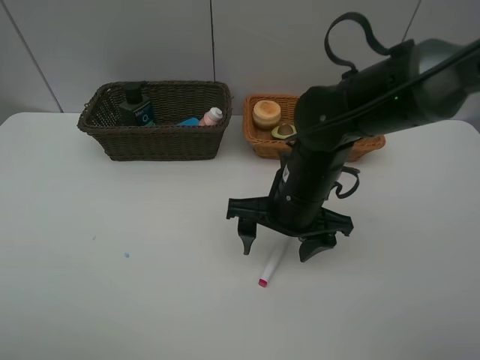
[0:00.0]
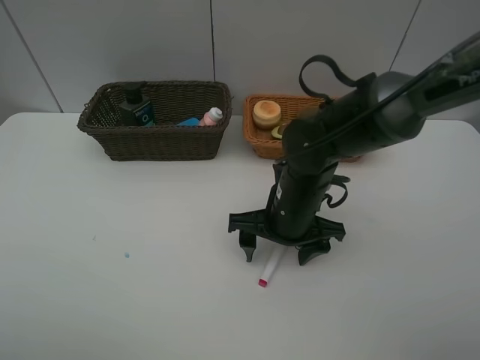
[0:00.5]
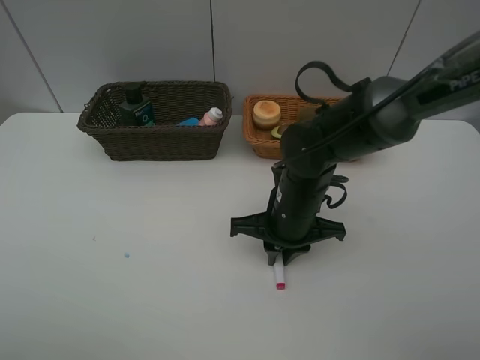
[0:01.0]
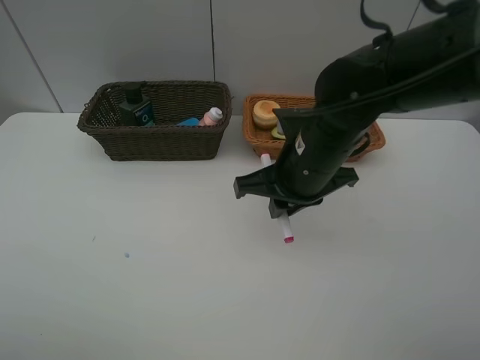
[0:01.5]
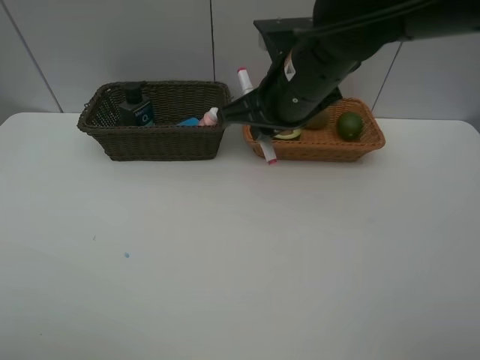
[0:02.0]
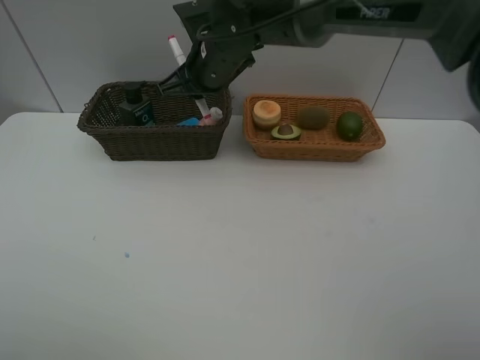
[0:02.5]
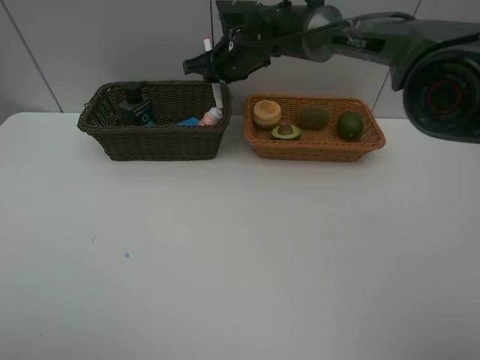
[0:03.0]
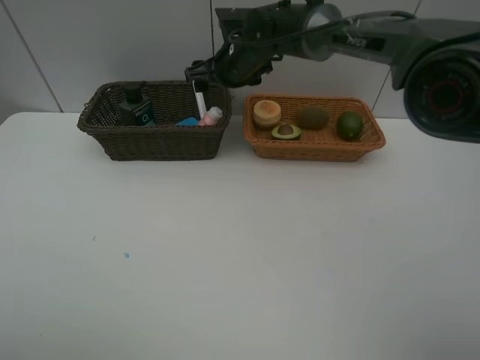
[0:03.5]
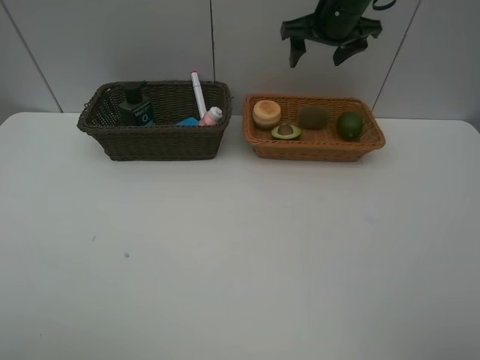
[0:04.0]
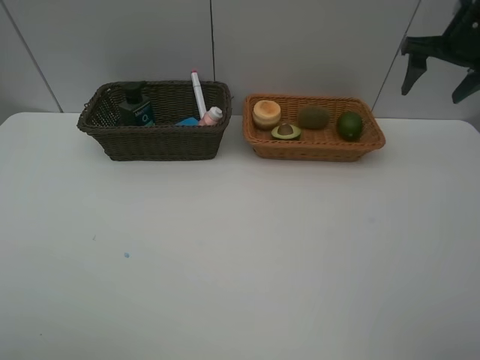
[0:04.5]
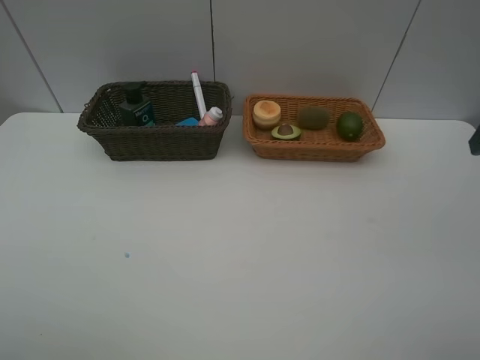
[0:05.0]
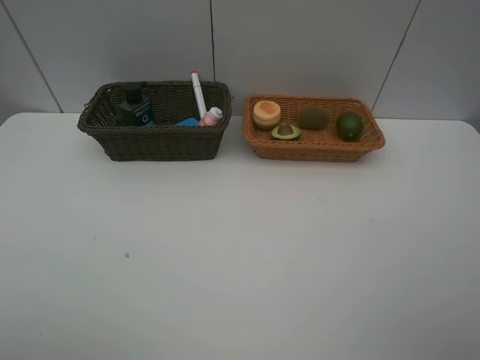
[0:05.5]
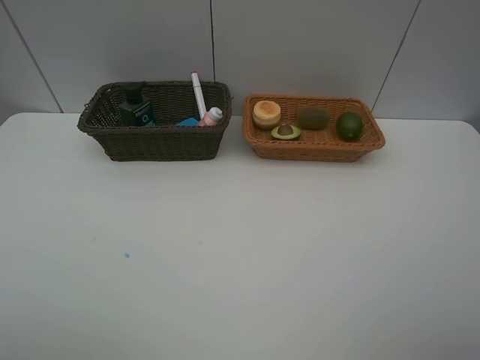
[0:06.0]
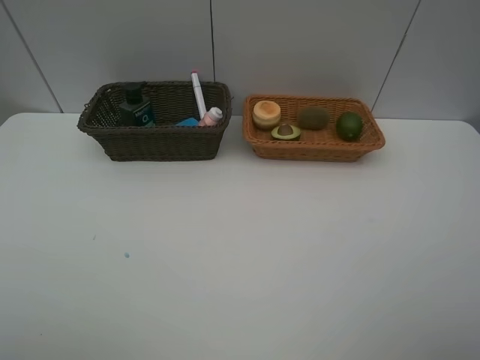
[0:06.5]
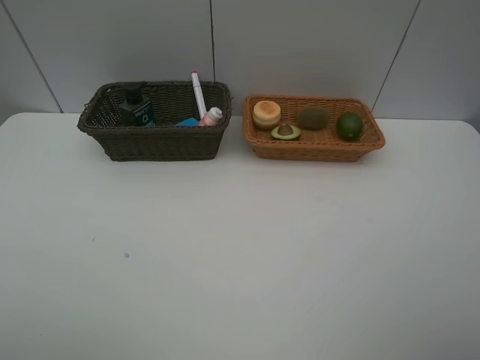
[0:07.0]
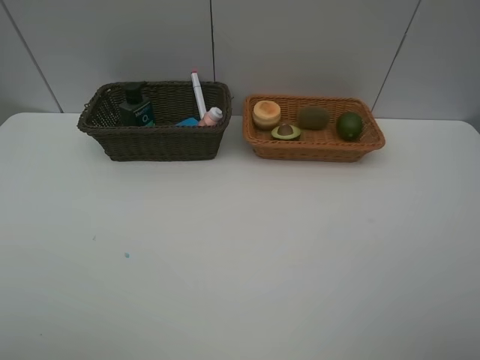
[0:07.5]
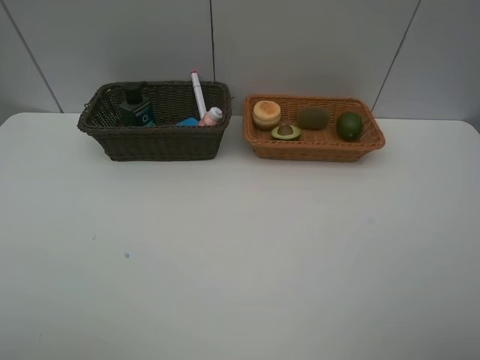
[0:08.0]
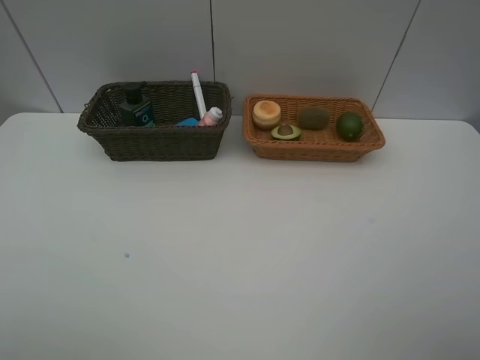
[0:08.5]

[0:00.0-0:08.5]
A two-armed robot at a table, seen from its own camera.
Task of the whole recording: Place multiple objects separately in different baskets.
Step, 0:01.5 to 0:03.5: Place the red marker in the dark basket with right gripper.
0:00.0 to 0:02.0: The right gripper is displaced upward by roughly 10 cm, and closes up.
0:02.0 to 0:04.0: The right gripper travels forward and to the right by approximately 20 cm, and opens.
0:04.0 to 0:06.5: The right gripper is displaced backward by roughly 50 cm.
0:06.5 to 0:08.5: The two grippers keep their place.

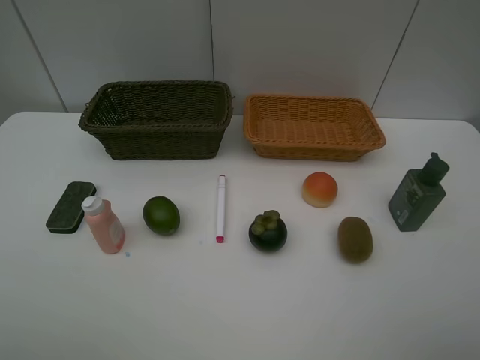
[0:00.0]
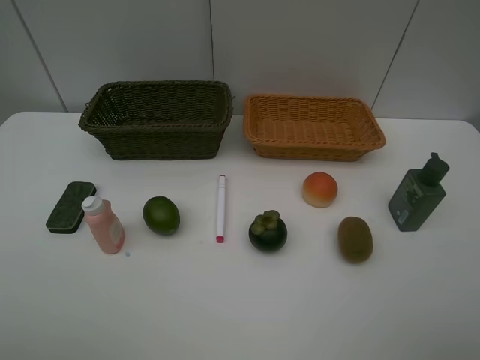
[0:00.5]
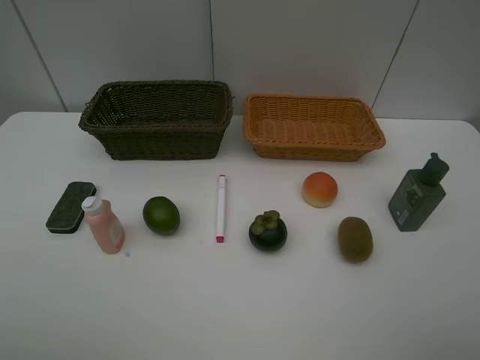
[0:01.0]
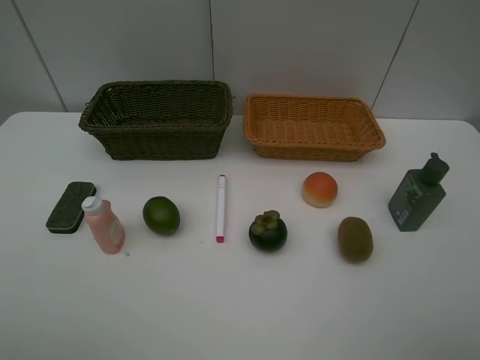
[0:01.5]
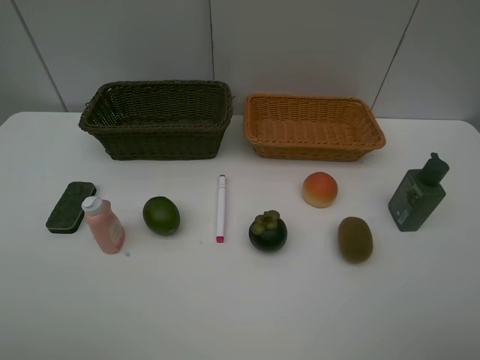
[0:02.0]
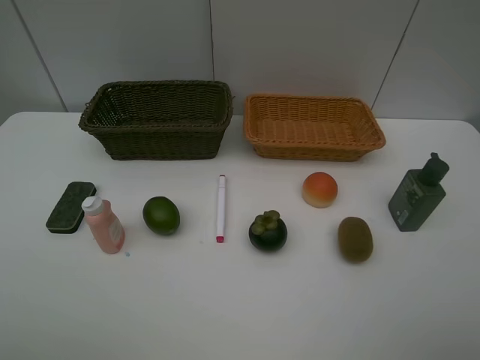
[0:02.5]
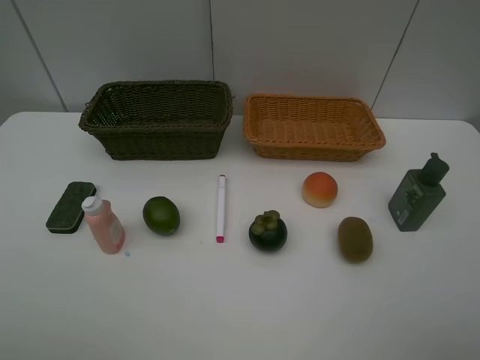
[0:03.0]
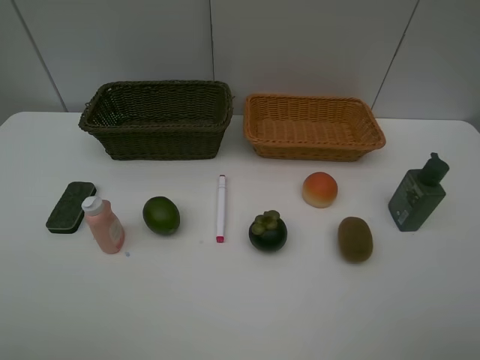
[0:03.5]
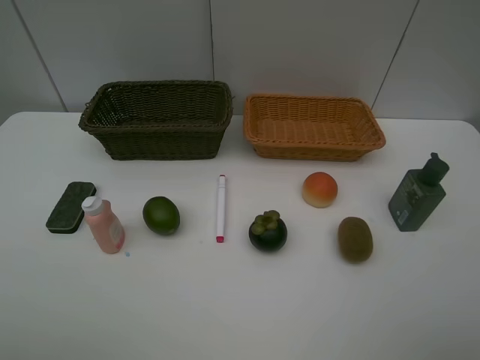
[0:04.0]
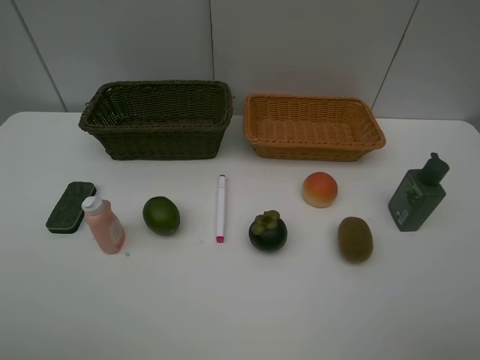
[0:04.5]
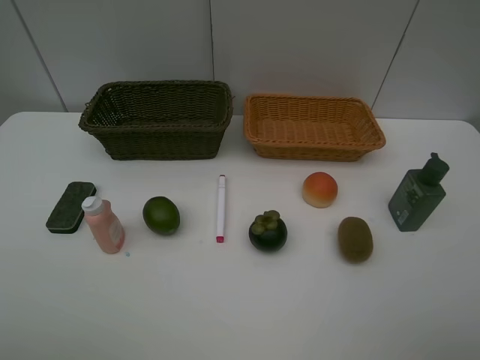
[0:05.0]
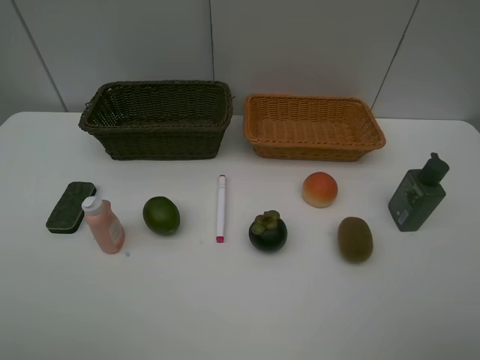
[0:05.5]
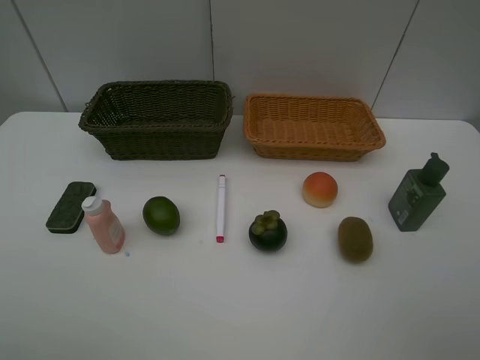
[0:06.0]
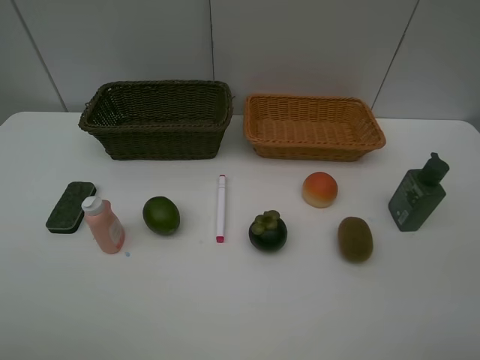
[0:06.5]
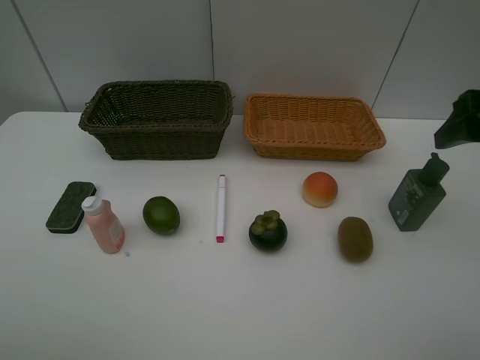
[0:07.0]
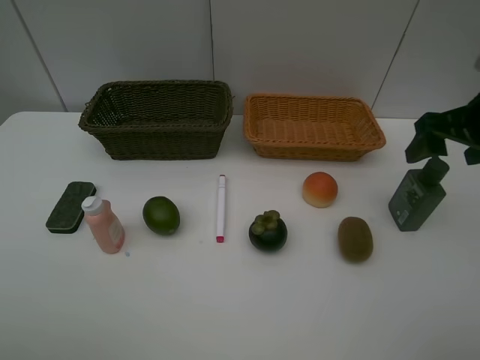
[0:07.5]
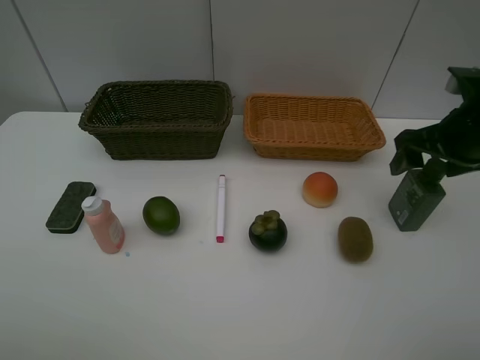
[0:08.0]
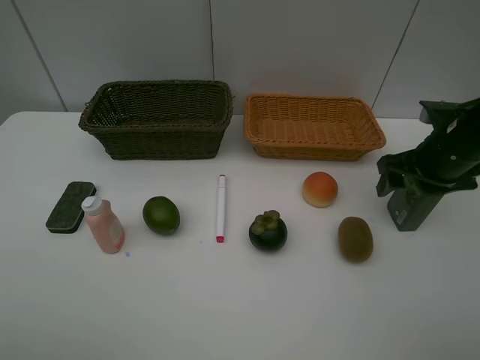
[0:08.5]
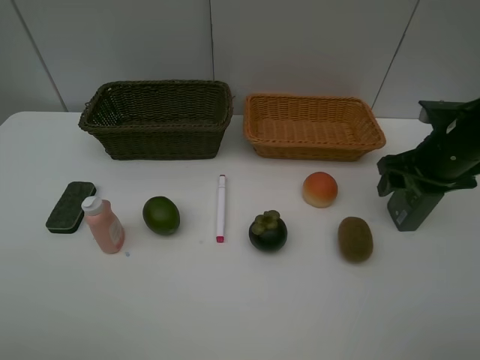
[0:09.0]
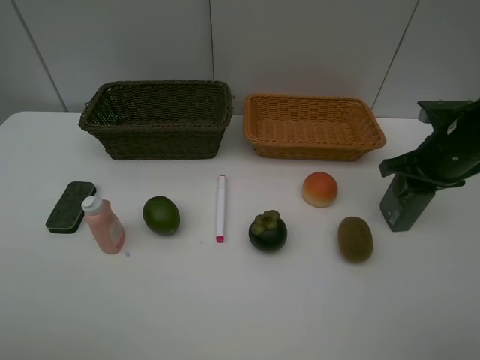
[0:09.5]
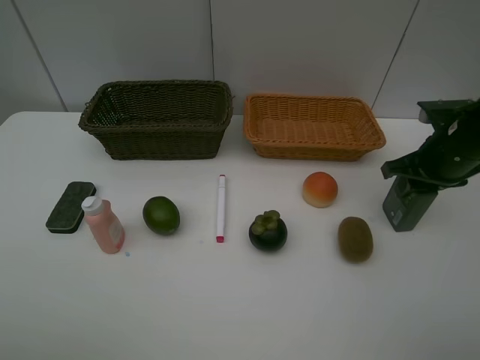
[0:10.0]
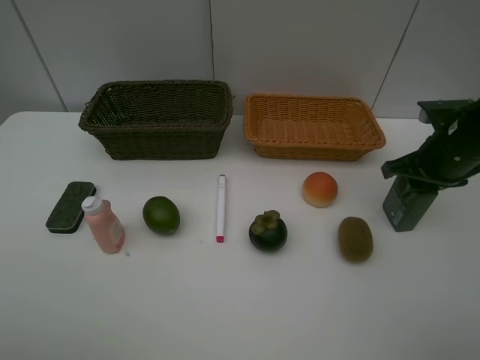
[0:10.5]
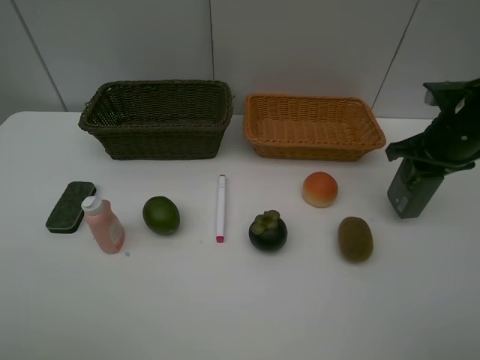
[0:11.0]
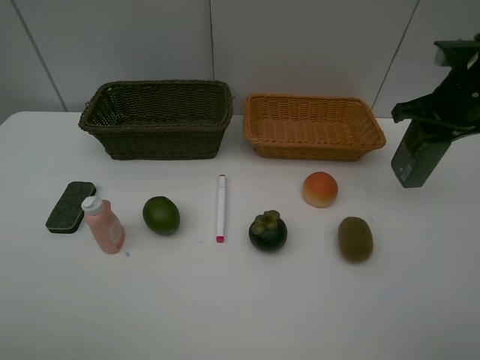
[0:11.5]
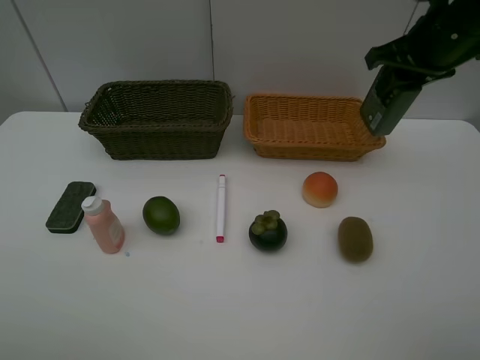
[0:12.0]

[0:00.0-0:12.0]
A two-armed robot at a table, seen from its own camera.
Task of the whole recording: Place multiple objects separately in different baskets.
Step, 0:00.0 to 0:11.0: Pick up the hard facial cleanser with right gripper.
0:00.0 to 0:04.0: Both grippers stay put.
0:06.0 to 0:08.0: The right gripper heads forward, covering about 20 cm.
0:08.0 to 0:10.0: The right gripper changes place by roughly 5 cm, and closes up.
0:10.0 to 0:12.0: The right gripper moves upward, forward and to the left, approximately 15 cm.

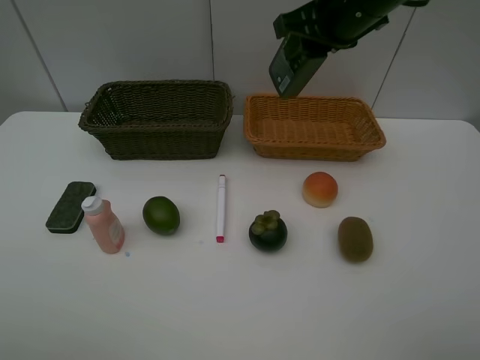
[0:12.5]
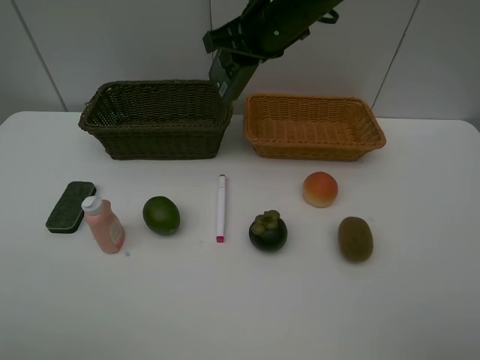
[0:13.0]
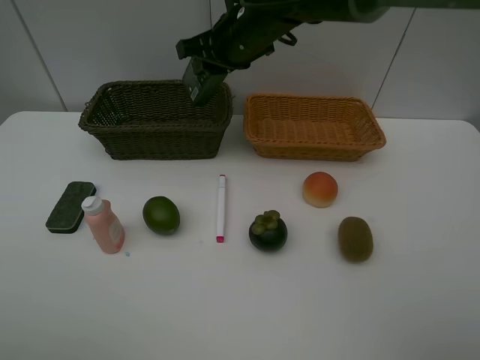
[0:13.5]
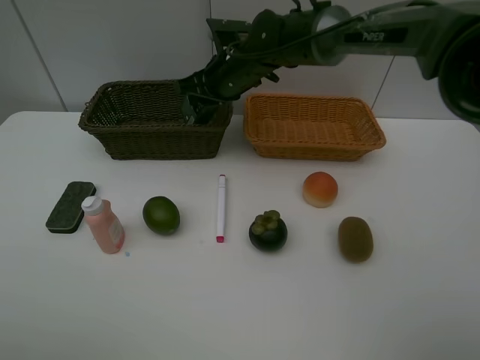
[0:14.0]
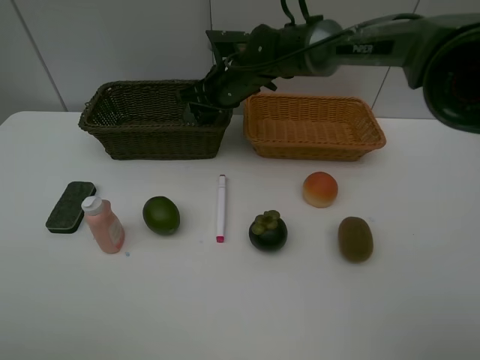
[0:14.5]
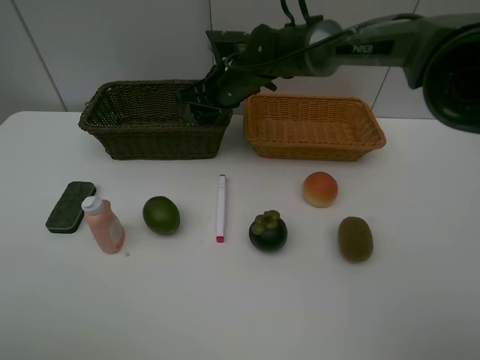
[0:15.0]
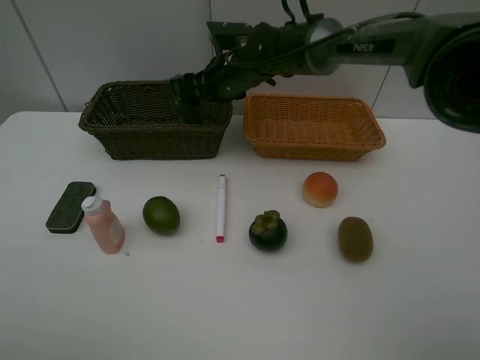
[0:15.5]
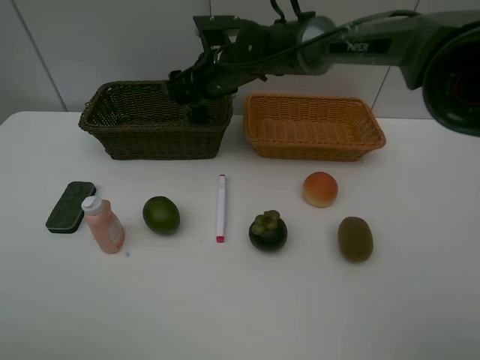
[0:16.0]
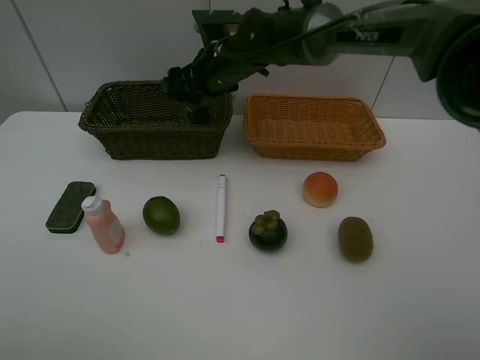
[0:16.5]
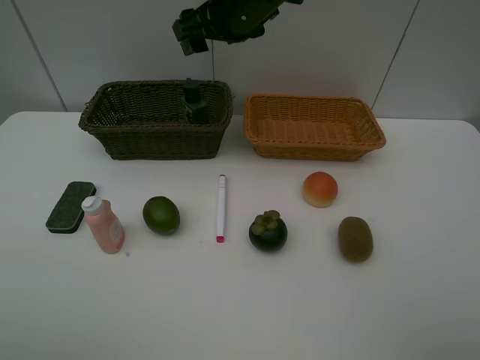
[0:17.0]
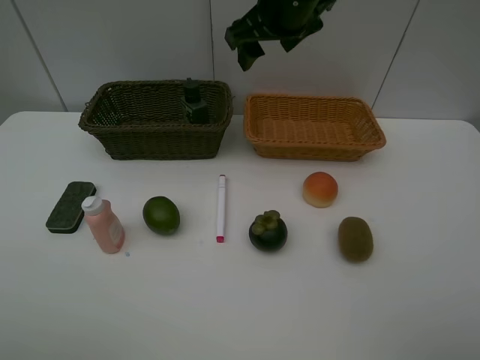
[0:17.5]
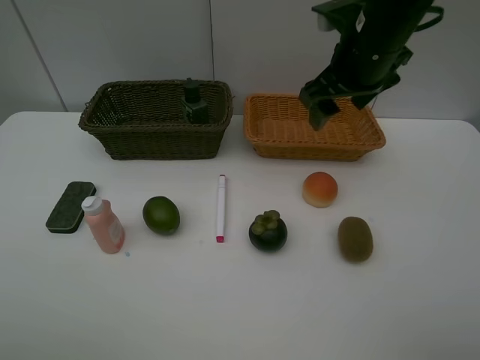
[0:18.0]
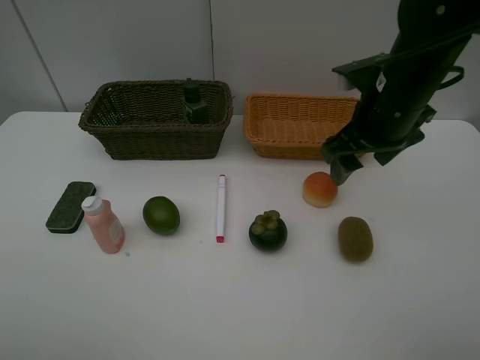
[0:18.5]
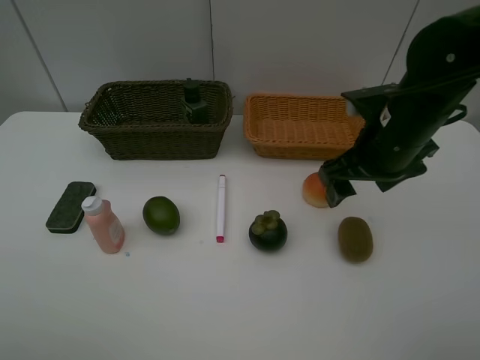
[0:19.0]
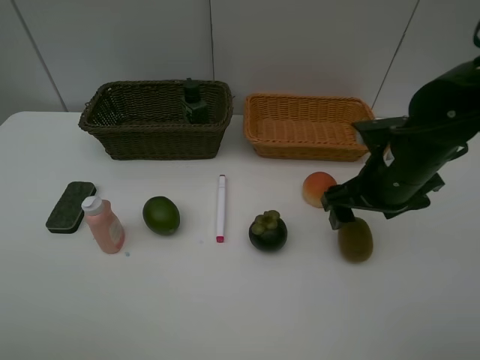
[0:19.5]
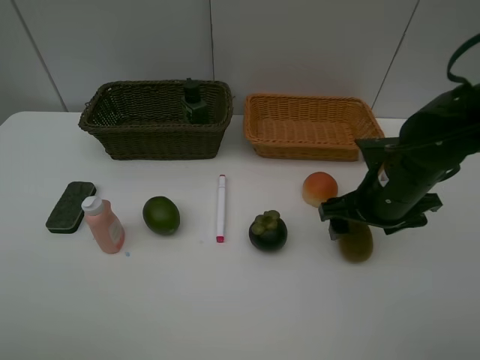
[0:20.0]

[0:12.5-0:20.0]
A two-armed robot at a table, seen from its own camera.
Task of the whole recording: Place multiple objects separately in different baskets.
Step, 0:12.5 to 0:15.5: Place the hard facial cleanser in the dark basket with right gripper.
0:12.5 to 0:14.5: The right gripper moves downward, to the left and forward, about 20 cm.
0:14.5 to 0:16.5: The right gripper opens.
0:16.5 to 0:18.0: The right gripper goes roughly 20 cm to the right, backward and upward.
0:18.0 to 0:20.0: The right gripper goes approximately 15 cm downward and backward.
